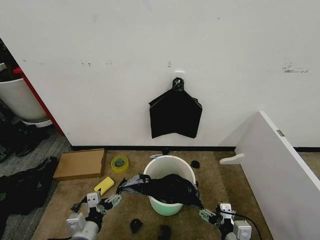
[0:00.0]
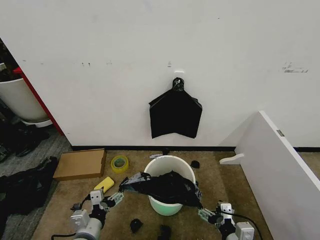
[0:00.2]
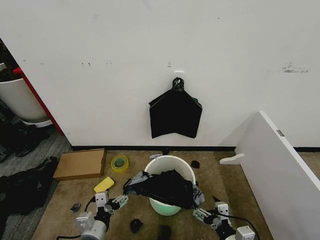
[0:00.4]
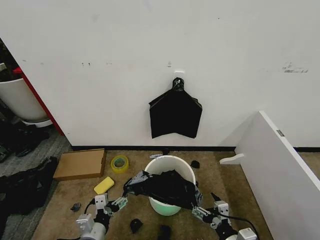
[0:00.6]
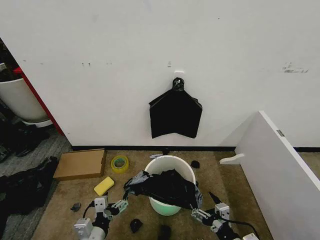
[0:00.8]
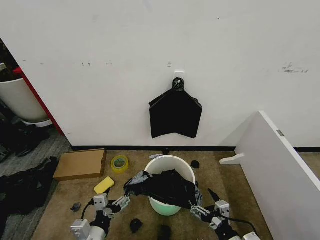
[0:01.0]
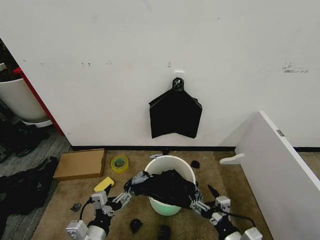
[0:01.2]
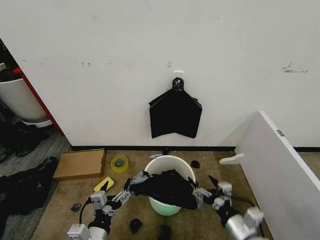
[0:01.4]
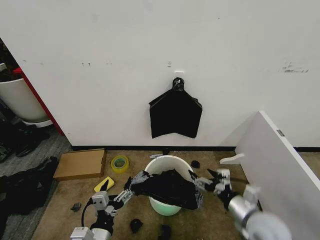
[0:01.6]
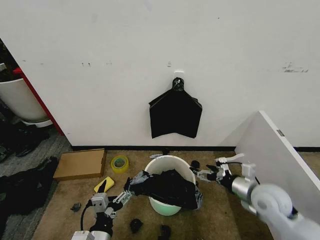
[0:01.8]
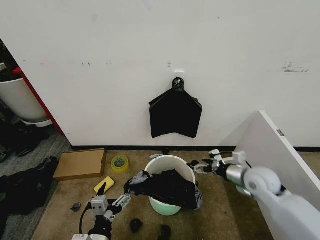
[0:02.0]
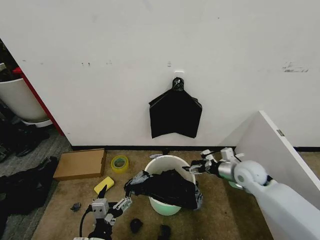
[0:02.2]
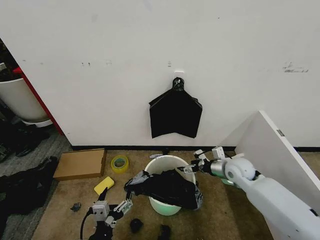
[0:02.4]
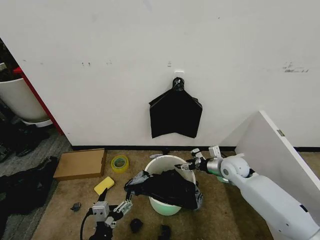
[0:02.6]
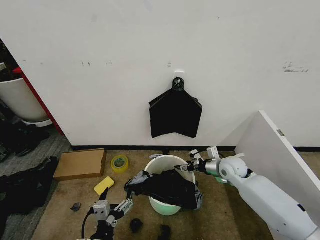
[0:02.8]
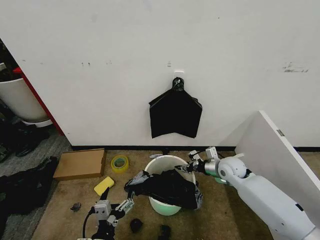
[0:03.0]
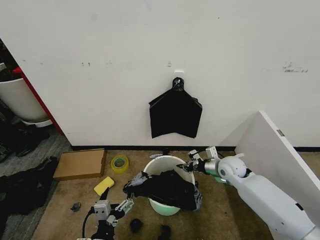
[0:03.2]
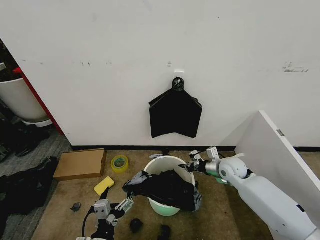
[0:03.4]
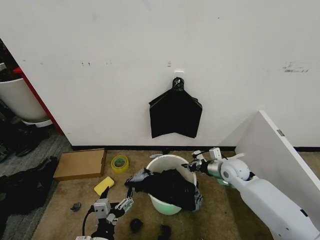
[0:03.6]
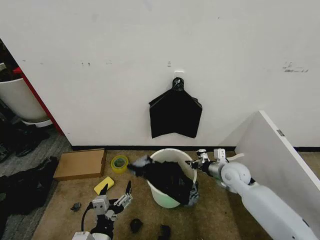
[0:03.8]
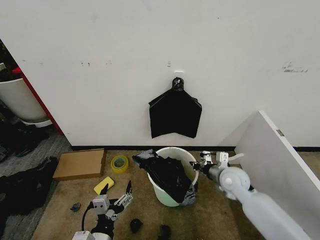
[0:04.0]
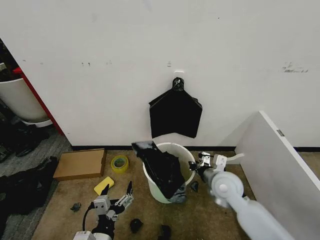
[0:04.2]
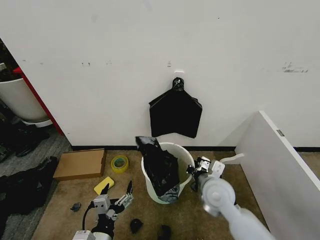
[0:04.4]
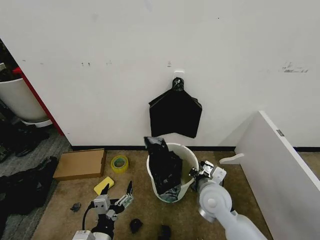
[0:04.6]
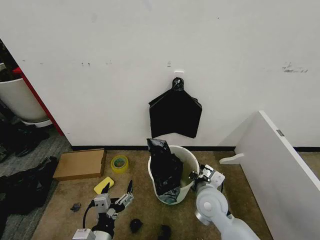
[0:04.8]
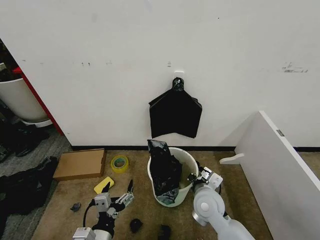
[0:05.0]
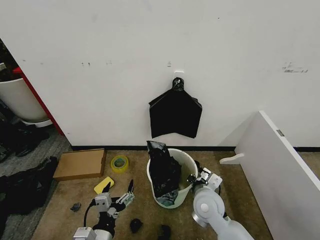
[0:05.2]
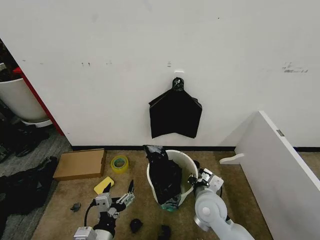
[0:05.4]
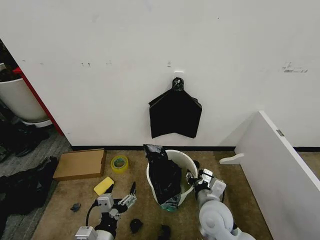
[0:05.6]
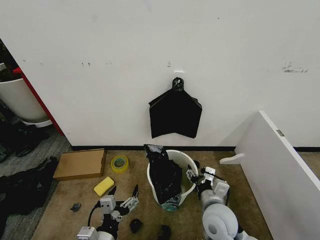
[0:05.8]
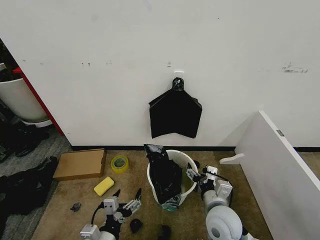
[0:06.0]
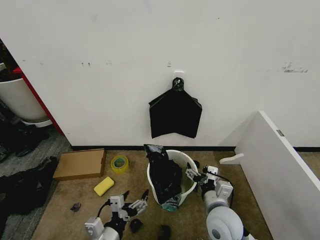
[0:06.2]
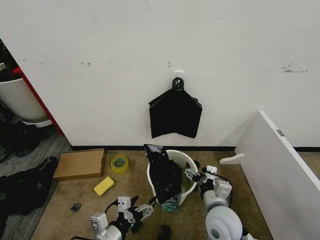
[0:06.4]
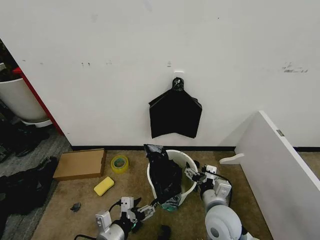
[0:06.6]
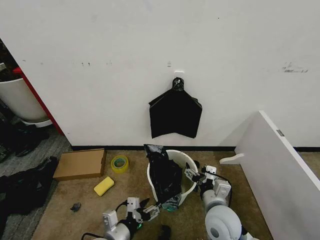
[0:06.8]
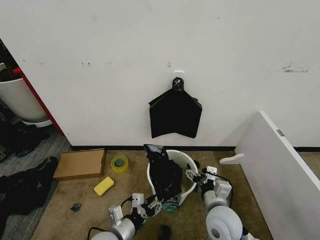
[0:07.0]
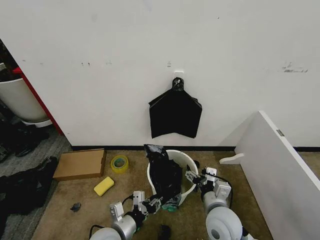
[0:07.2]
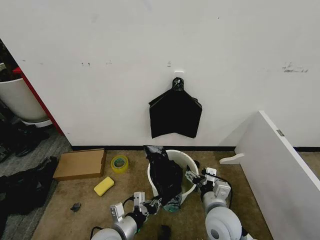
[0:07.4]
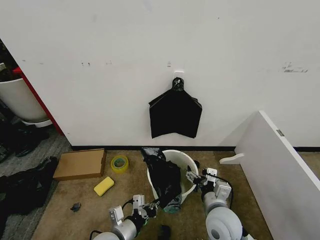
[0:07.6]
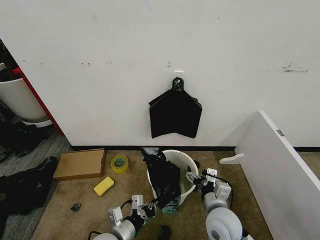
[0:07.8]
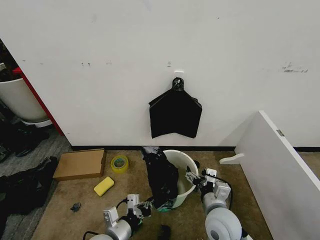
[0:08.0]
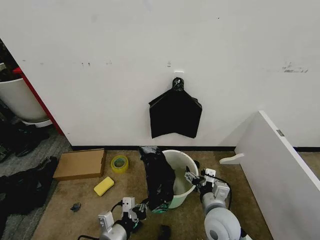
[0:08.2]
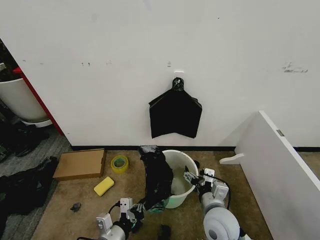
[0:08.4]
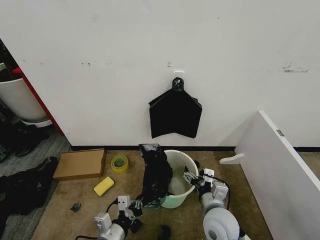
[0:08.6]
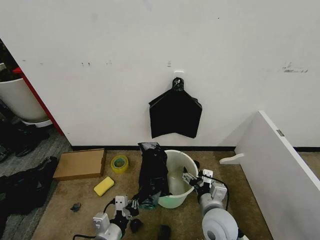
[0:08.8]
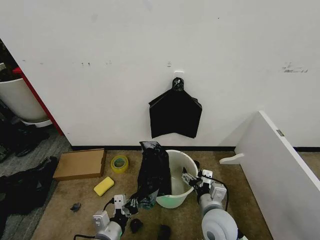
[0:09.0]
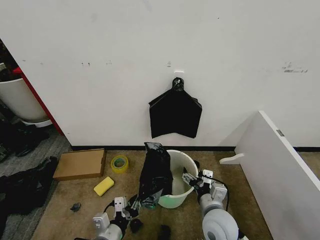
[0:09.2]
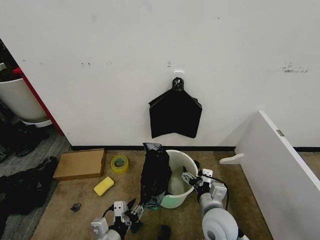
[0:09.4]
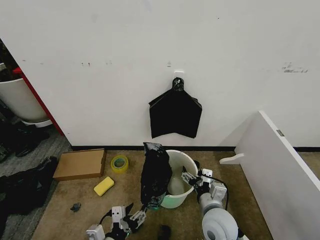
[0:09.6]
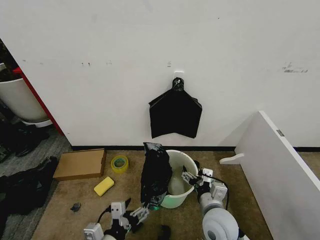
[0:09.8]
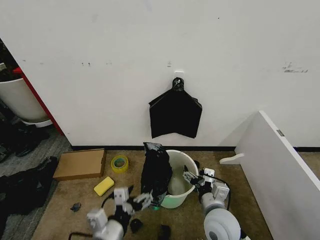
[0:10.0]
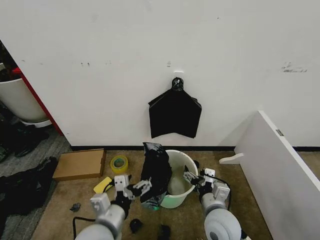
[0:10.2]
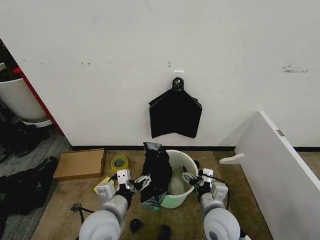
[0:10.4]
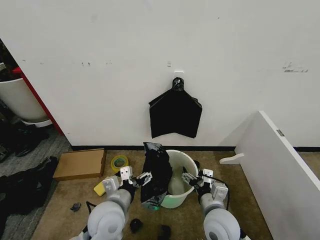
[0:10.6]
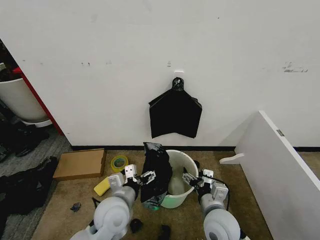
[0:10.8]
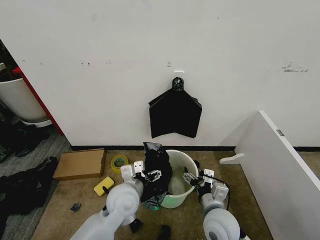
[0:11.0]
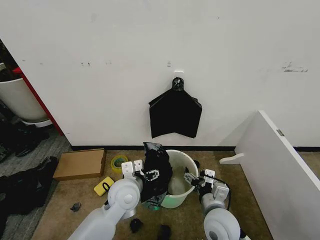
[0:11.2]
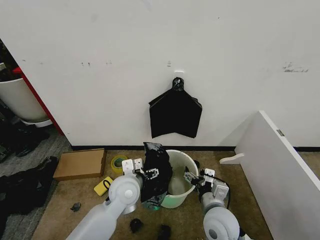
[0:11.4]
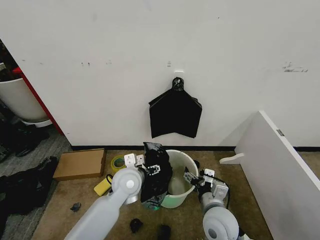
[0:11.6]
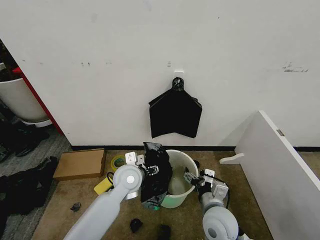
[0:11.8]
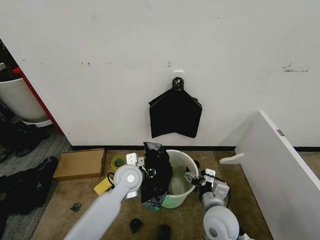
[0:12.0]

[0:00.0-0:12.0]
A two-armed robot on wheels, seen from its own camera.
Task of the whole recording: Place the garbage bag over the trash bin.
0:00.0 to 0:01.6: The left gripper moves to the right, about 5 cm. The right gripper goes about 10 cm forward and upward.
0:01.6 to 0:03.0: The right gripper moves forward, about 20 cm, and closes its fingers.
0:03.0 to 0:04.4: The right gripper heads backward, to the left and upward, covering some 15 cm, and closes its fingers.
0:04.4 to 0:06.0: The right gripper heads backward, covering roughly 10 cm, and opens.
0:06.0 to 0:07.6: The left gripper goes approximately 5 cm forward, and closes up.
0:09.0 to 0:10.4: The left gripper moves upward, roughly 10 cm, and opens its fingers.
0:10.4 to 0:12.0: The left gripper shifts approximately 15 cm forward, and closes.

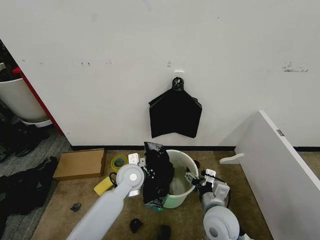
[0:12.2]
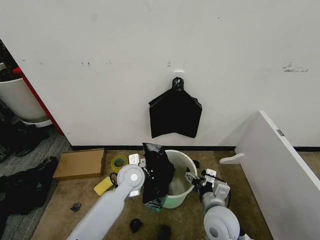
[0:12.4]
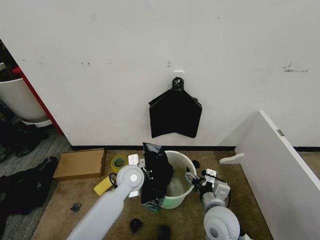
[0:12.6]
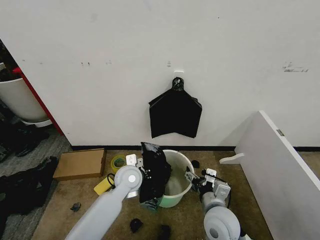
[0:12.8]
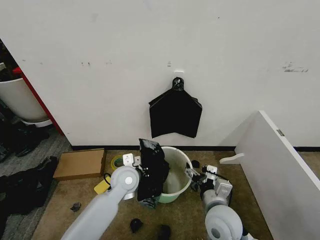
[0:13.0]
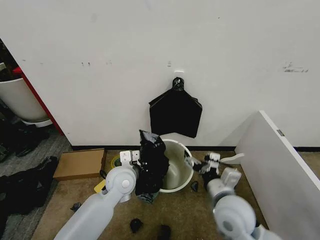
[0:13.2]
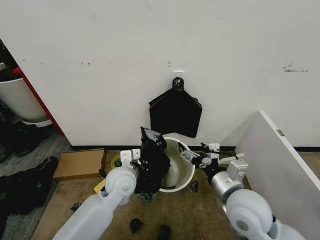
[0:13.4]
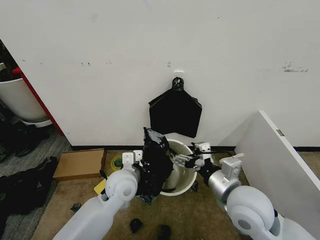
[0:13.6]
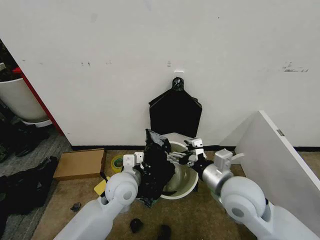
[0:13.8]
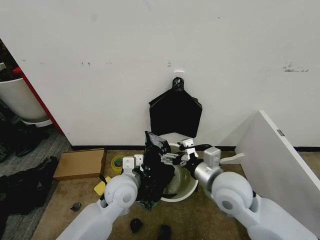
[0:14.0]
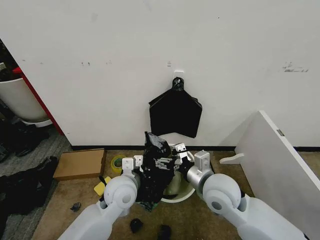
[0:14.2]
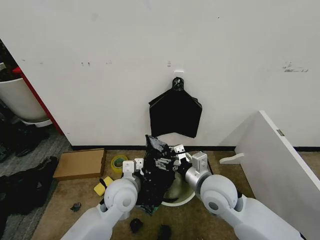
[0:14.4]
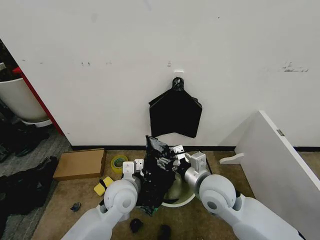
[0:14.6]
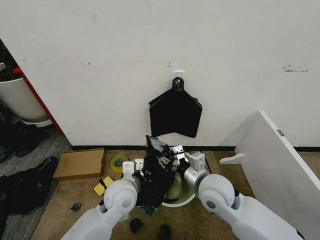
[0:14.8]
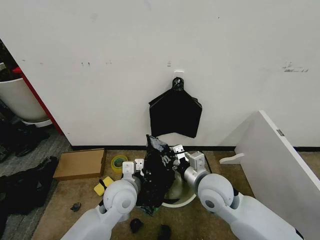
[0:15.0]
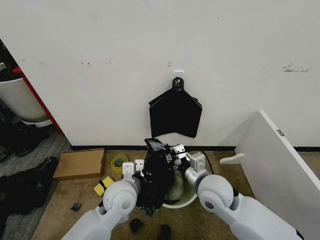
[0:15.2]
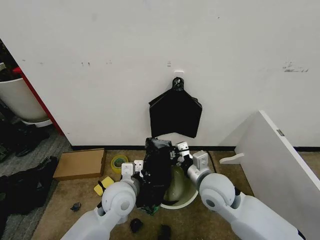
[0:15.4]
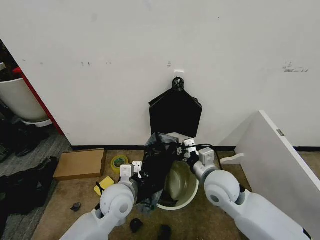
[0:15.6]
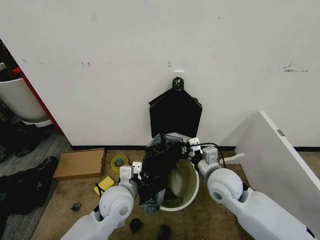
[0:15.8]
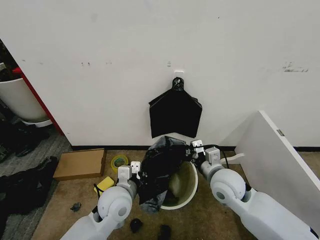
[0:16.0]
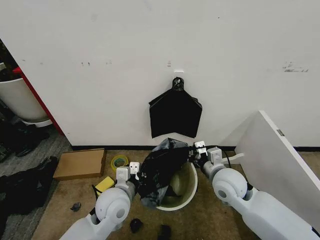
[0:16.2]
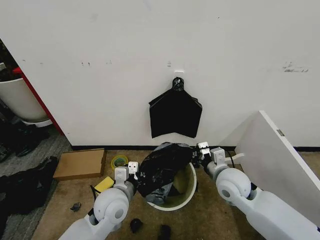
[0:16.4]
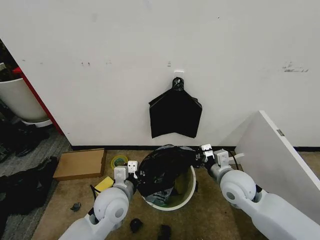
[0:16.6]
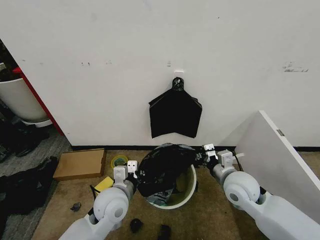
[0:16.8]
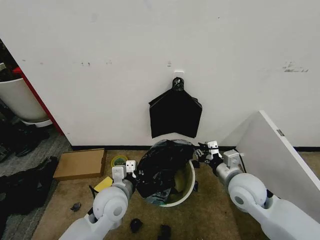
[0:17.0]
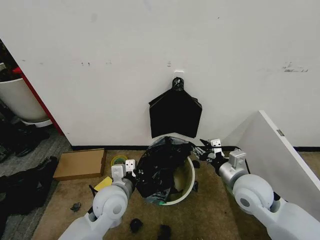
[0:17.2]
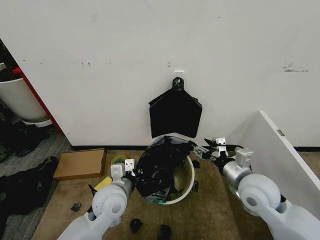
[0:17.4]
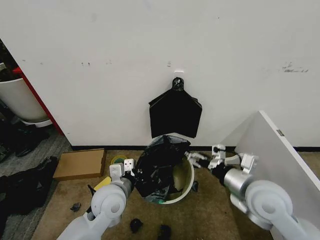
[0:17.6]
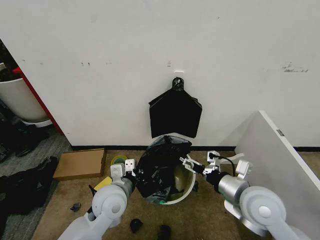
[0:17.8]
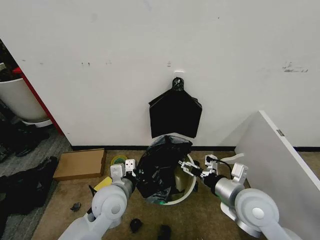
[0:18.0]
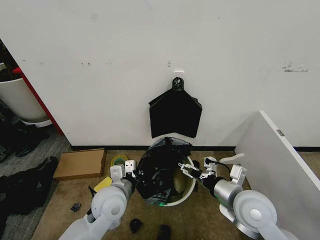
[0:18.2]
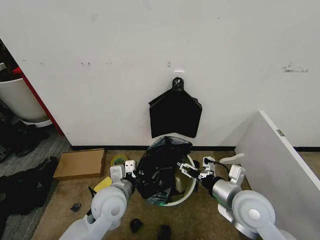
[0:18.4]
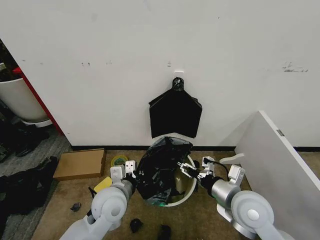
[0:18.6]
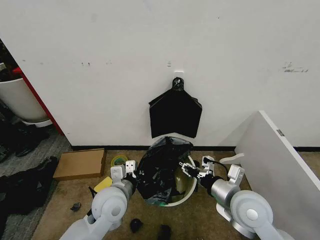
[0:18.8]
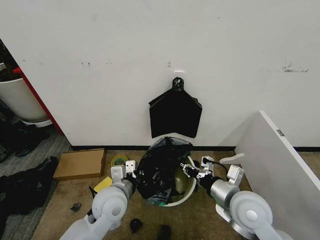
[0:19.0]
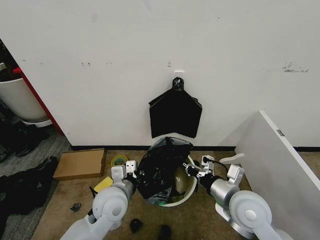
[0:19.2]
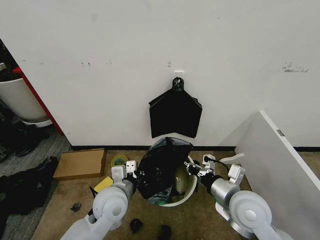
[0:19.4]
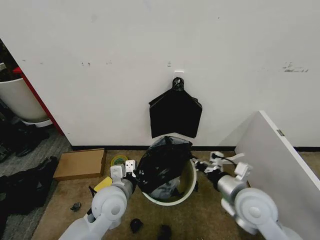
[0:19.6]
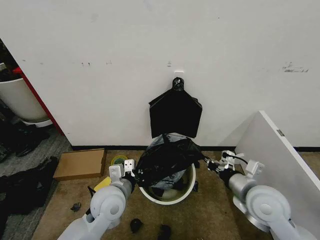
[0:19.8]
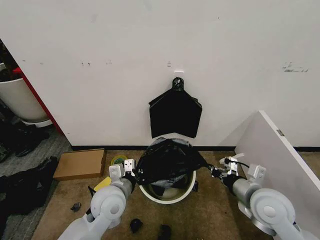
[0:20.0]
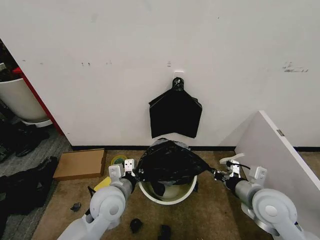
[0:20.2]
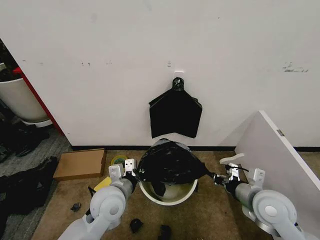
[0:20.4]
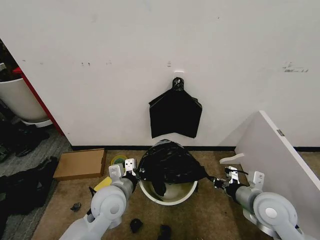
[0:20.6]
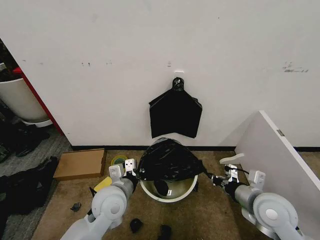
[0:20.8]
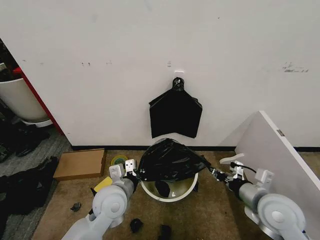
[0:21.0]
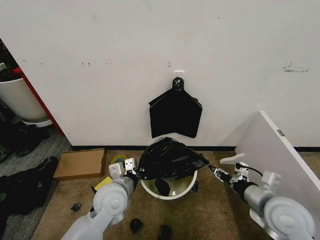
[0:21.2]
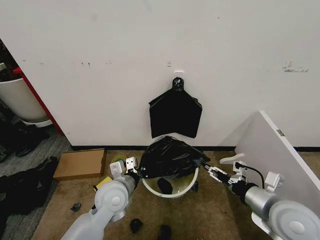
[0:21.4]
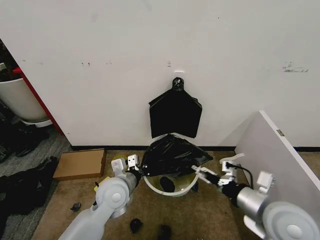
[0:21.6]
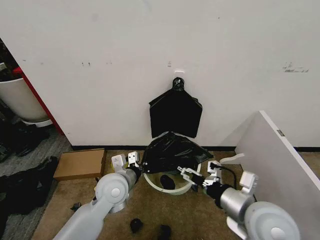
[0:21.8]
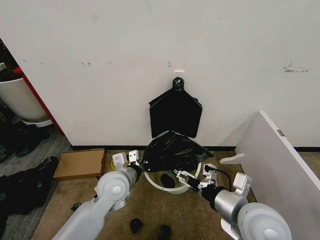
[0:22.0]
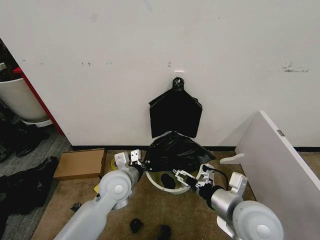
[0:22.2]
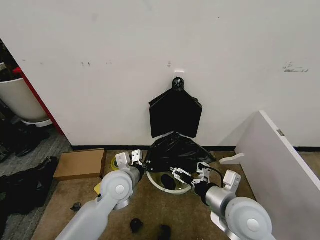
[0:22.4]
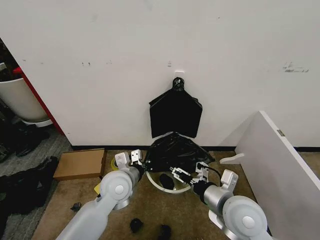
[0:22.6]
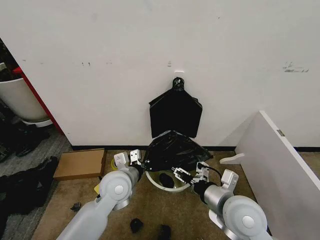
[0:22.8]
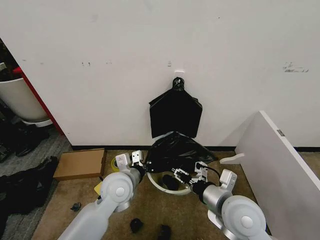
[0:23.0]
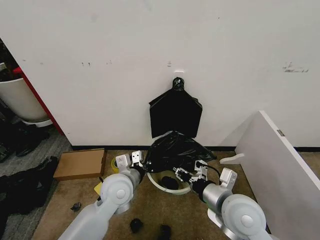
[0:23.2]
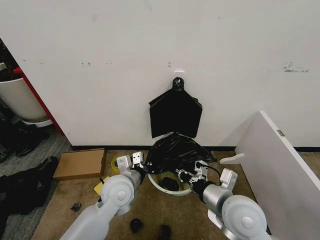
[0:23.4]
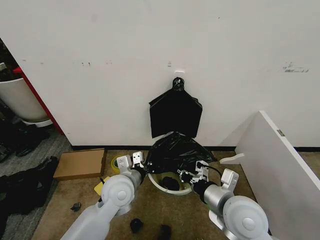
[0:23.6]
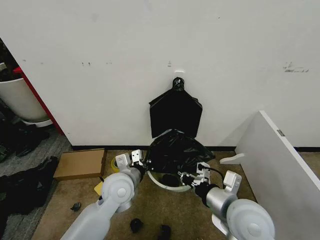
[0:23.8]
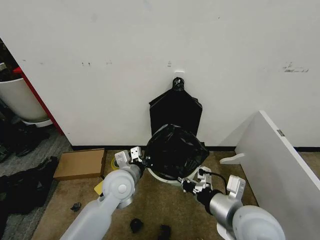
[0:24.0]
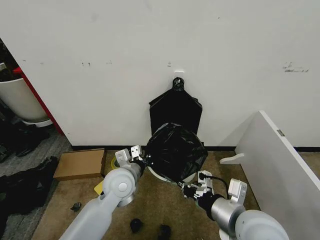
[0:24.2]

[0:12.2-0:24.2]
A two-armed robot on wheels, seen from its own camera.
Task of the whole recording: Place the garbage bag over the trash bin.
0:12.2 to 0:13.8: The left gripper shifts about 5 cm backward. The right gripper is displaced upward by roughly 15 cm.
0:13.8 to 0:15.2: The right gripper heads downward, covering about 5 cm, and closes up.
0:15.2 to 0:16.6: The right gripper shifts roughly 5 cm to the right.
0:16.6 to 0:18.2: The right gripper shifts approximately 10 cm backward, and opens.
0:18.2 to 0:19.8: The right gripper closes.
0:19.8 to 0:21.2: The right gripper opens.
0:21.2 to 0:22.6: The right gripper travels to the left by some 10 cm, and opens up.
0:22.6 to 0:24.2: The right gripper changes place by about 5 cm, and closes its fingers.
